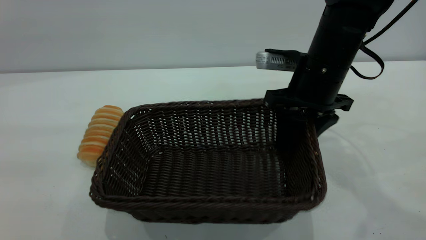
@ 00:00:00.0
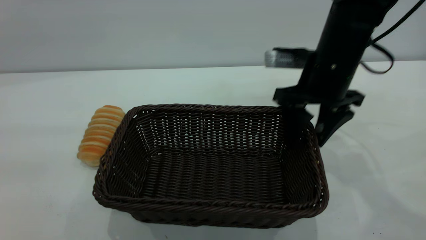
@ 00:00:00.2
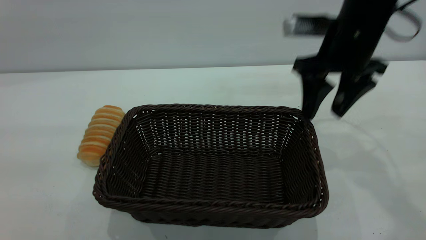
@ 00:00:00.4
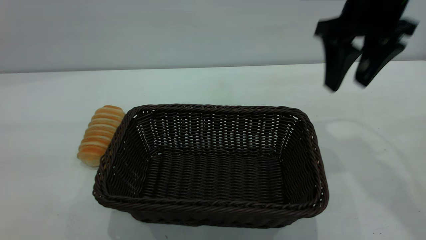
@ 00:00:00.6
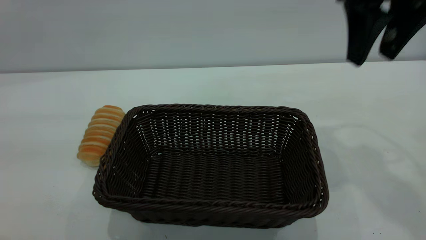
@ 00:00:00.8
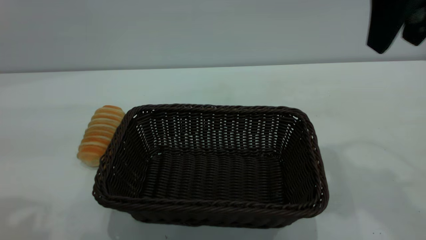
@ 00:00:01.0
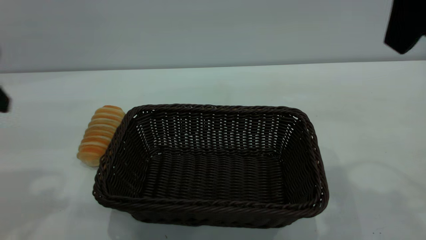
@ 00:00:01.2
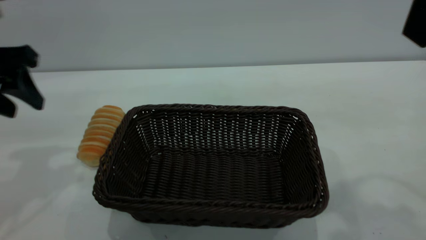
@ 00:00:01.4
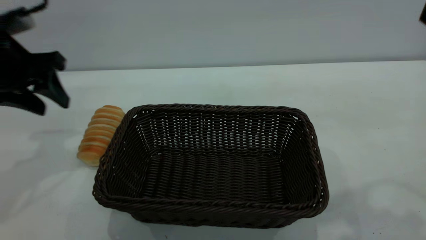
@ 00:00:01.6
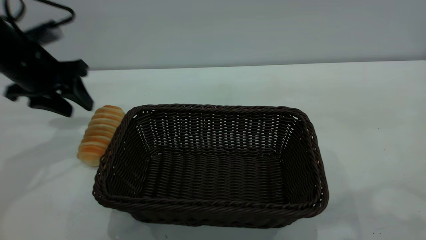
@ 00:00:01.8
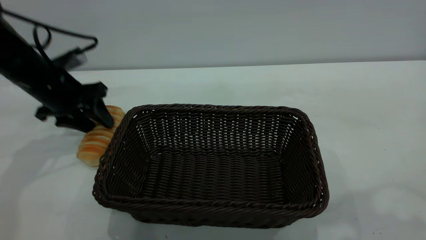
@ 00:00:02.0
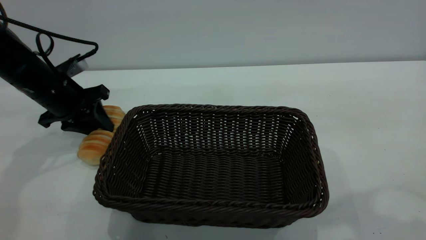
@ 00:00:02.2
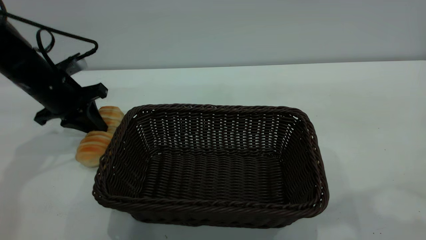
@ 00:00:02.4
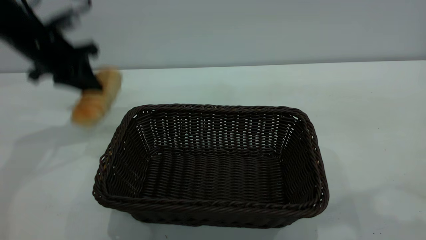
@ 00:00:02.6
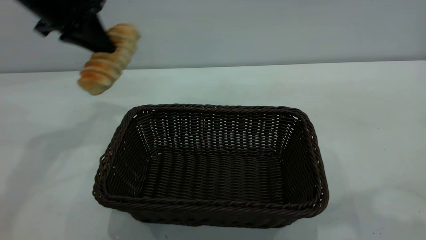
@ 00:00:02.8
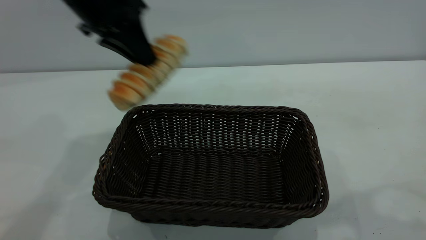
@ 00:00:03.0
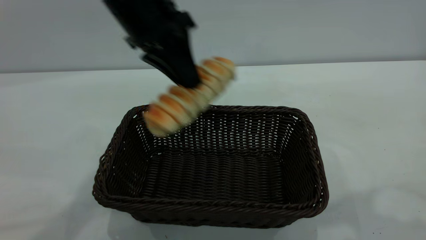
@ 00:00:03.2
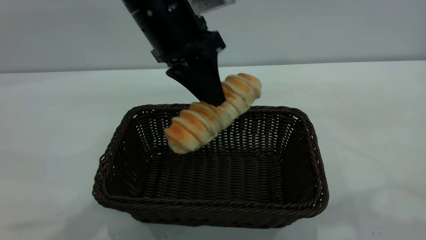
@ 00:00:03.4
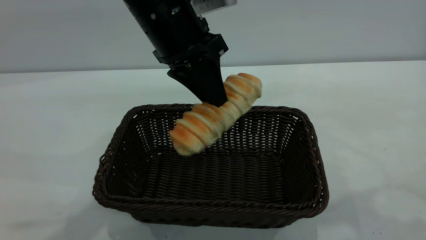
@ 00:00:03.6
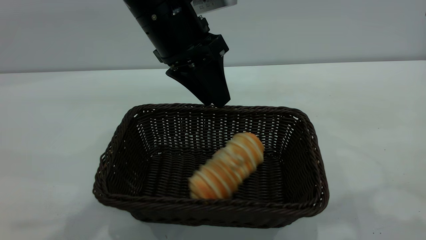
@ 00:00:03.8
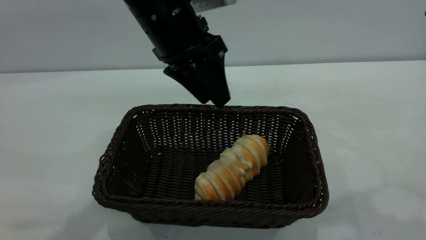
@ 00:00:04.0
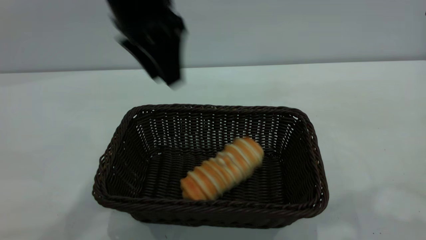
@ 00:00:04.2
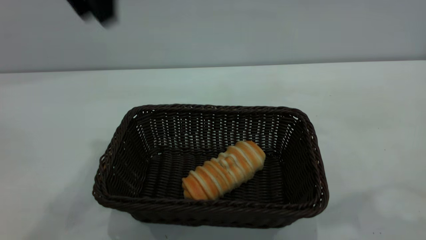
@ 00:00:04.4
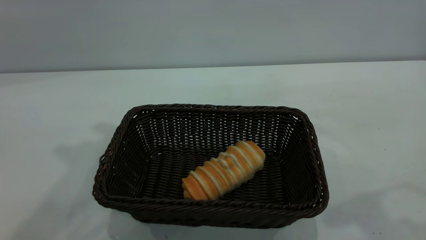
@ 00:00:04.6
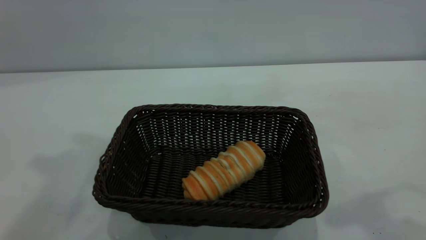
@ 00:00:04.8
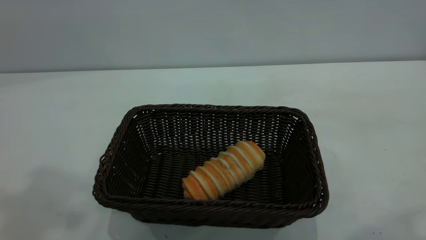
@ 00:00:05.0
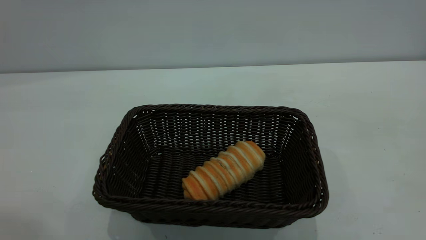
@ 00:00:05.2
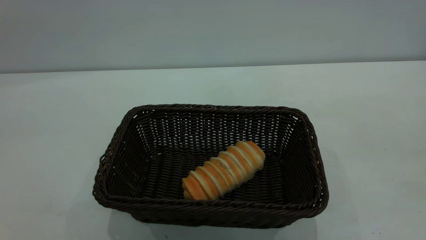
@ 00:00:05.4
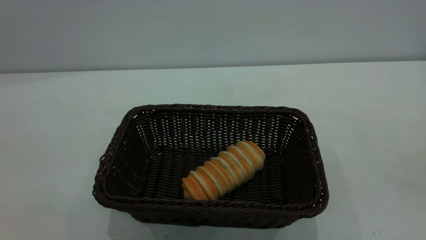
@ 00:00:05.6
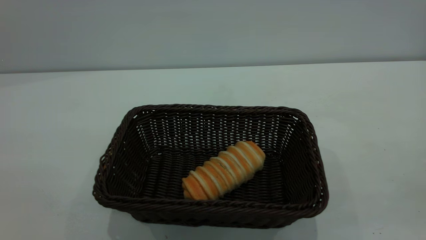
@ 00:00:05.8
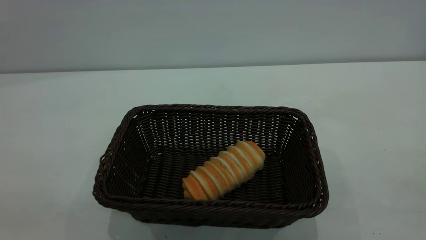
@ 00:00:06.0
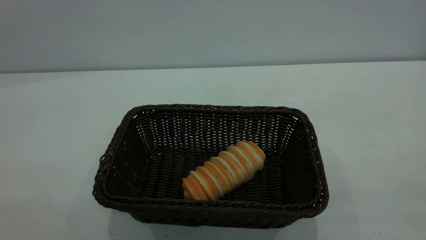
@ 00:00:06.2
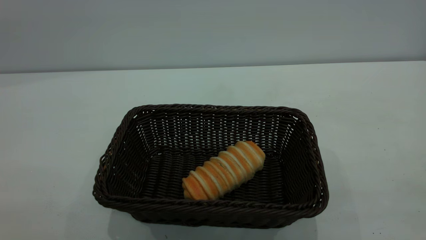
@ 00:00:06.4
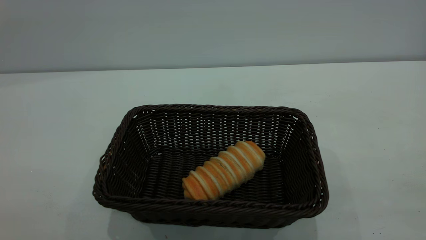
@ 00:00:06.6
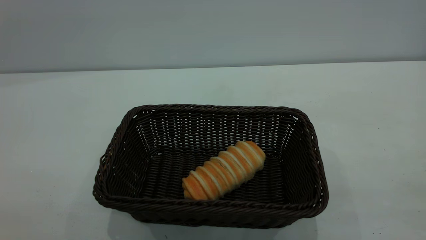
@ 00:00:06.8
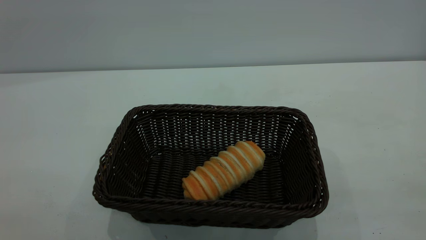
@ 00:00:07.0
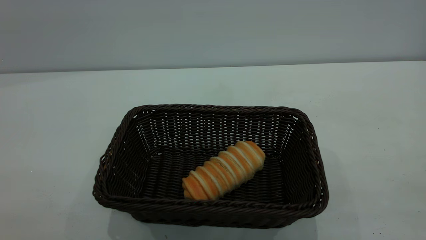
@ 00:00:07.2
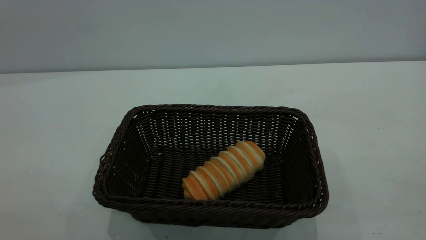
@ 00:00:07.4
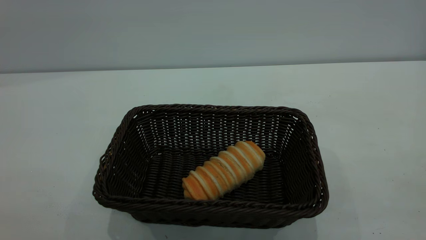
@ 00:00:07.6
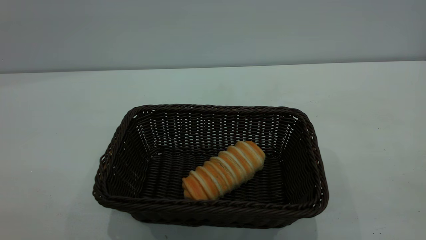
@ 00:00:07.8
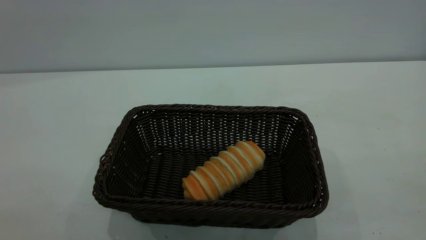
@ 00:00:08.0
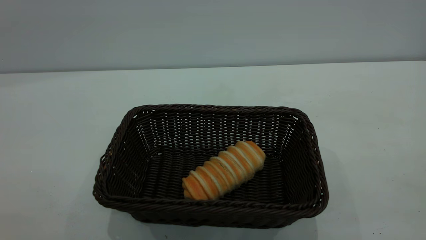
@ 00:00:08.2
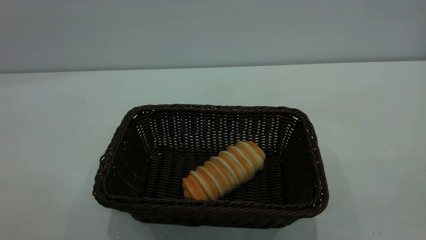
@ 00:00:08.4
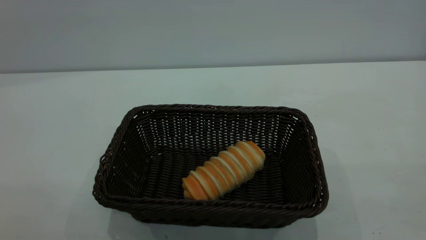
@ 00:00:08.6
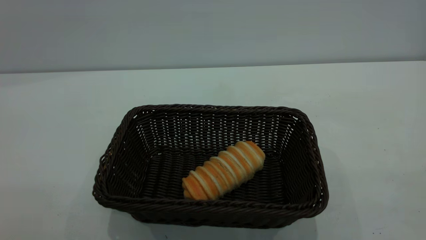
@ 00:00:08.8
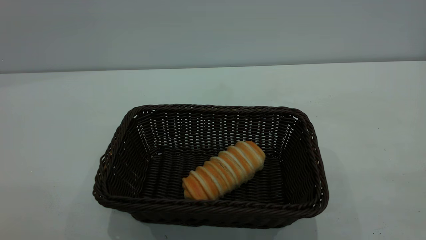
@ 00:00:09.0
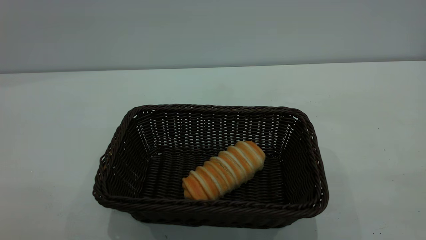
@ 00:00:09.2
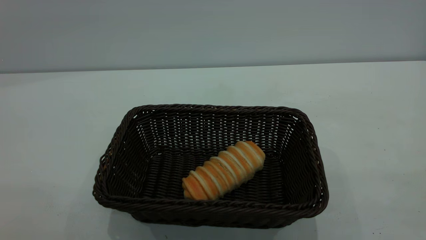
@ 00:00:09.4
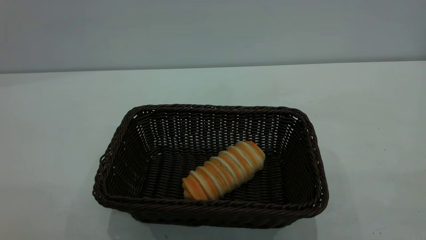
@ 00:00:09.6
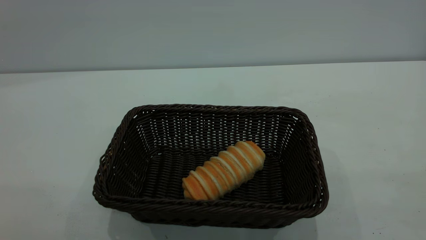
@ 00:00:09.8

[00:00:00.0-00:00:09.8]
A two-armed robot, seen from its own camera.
Task of the whole recording: One hand grasps the black basket and places it in the middle of the table, while the other hand picks up the long bread and puts it into the black basket.
Step, 00:00:02.8 to 00:00:04.2: place the bread into the basket.
00:00:00.0 to 00:00:01.4: The left gripper moves forward and downward, roughly 30 cm. Meanwhile the right gripper goes about 30 cm upward and backward.
00:00:01.4 to 00:00:02.8: The left gripper heads forward and to the right, covering roughly 15 cm, travels downward and back again, approximately 15 cm each way, and closes up.
00:00:02.8 to 00:00:04.2: The left gripper goes approximately 15 cm to the right and backward, and opens.
00:00:04.2 to 00:00:05.6: The left gripper travels backward, to the left and upward by about 40 cm, while the right gripper is displaced backward and to the right by approximately 20 cm.
